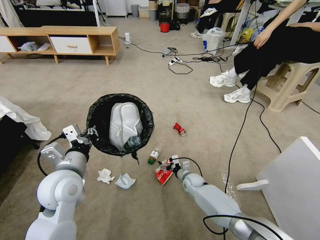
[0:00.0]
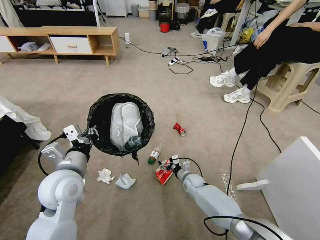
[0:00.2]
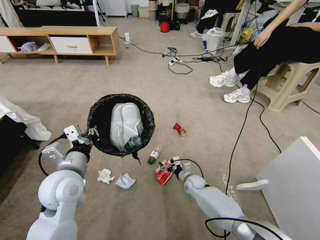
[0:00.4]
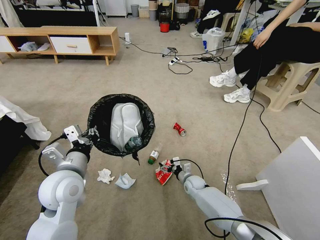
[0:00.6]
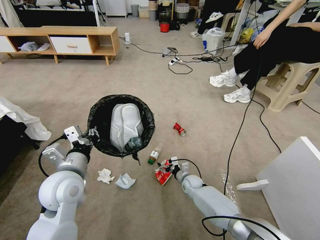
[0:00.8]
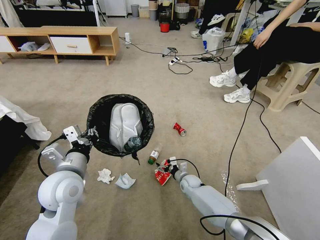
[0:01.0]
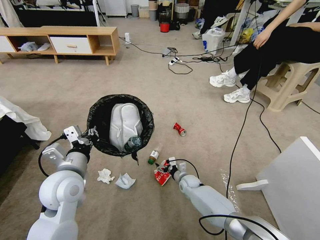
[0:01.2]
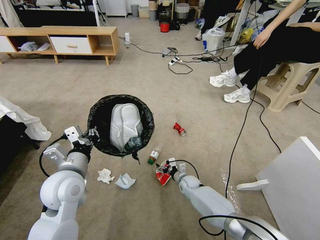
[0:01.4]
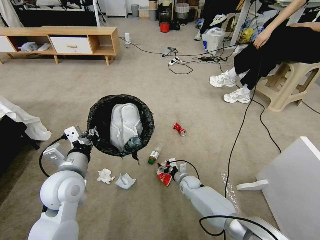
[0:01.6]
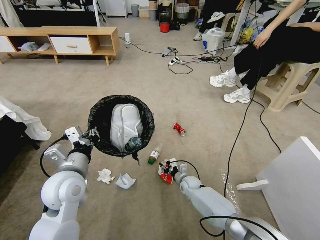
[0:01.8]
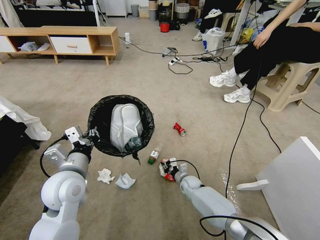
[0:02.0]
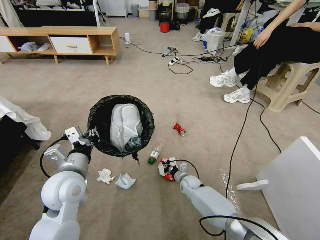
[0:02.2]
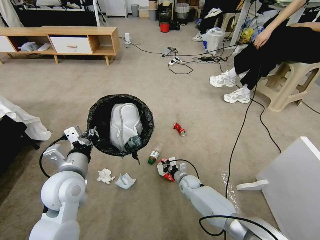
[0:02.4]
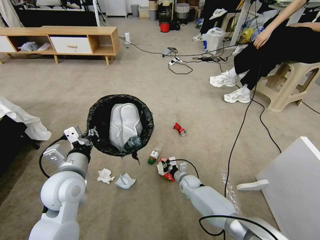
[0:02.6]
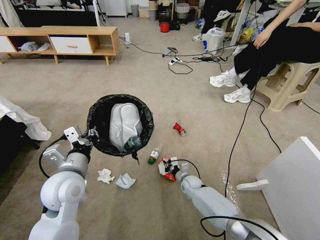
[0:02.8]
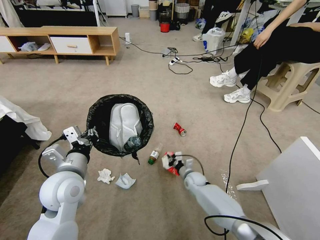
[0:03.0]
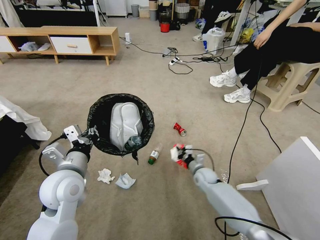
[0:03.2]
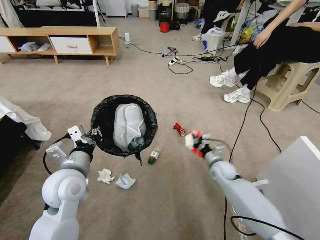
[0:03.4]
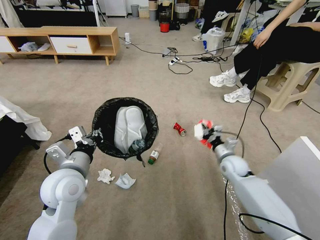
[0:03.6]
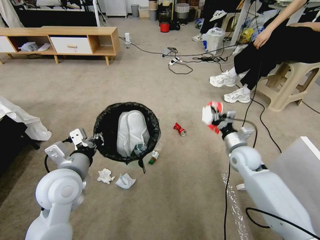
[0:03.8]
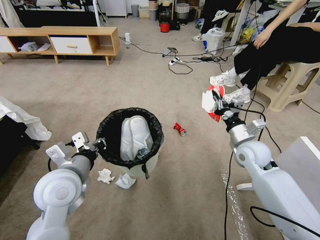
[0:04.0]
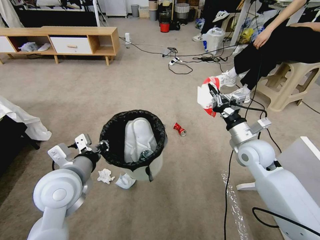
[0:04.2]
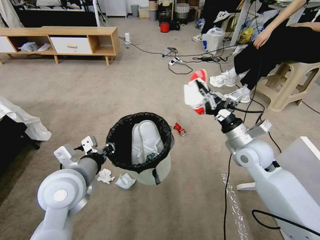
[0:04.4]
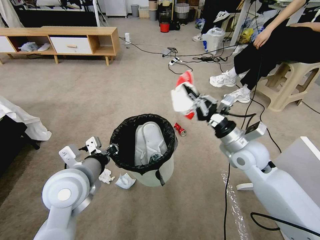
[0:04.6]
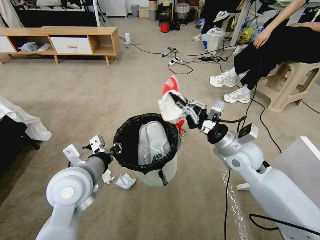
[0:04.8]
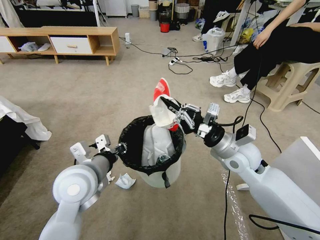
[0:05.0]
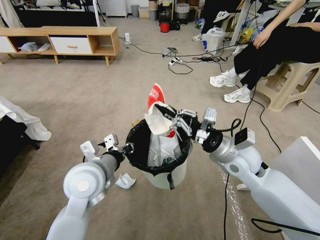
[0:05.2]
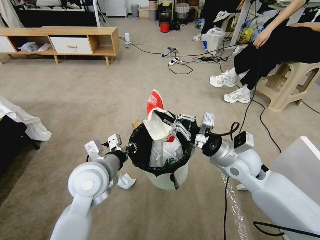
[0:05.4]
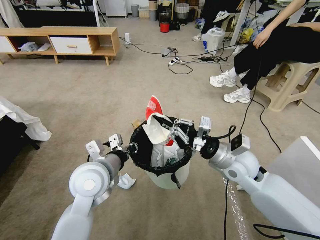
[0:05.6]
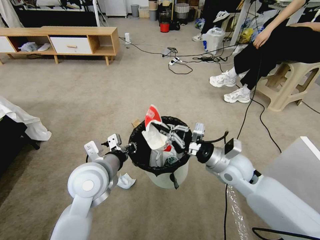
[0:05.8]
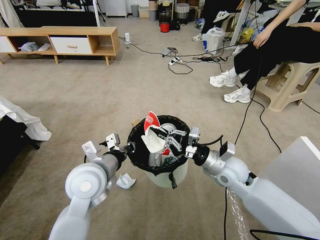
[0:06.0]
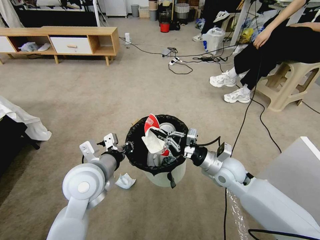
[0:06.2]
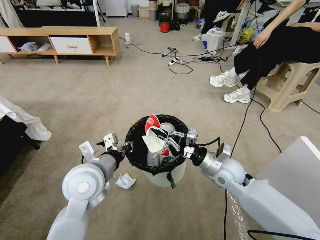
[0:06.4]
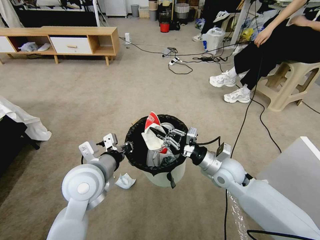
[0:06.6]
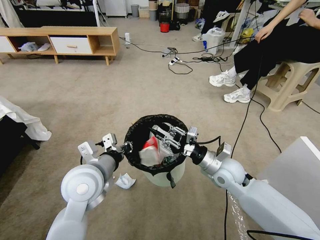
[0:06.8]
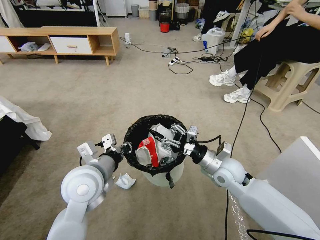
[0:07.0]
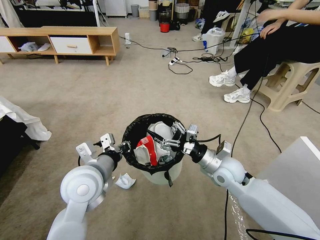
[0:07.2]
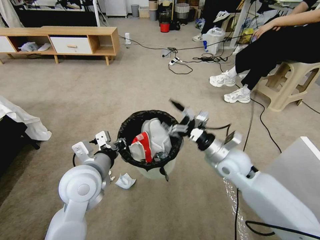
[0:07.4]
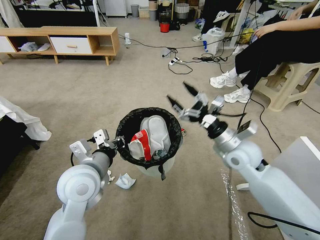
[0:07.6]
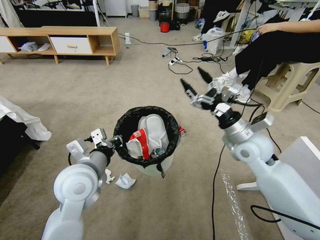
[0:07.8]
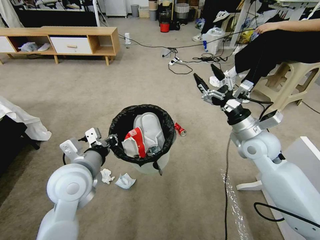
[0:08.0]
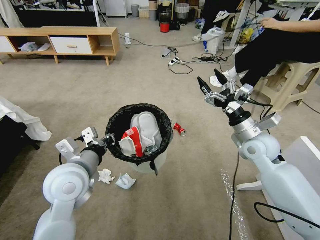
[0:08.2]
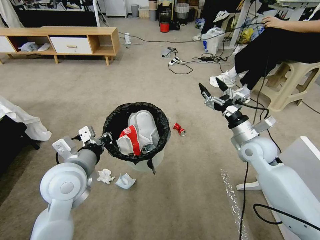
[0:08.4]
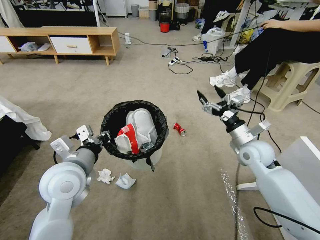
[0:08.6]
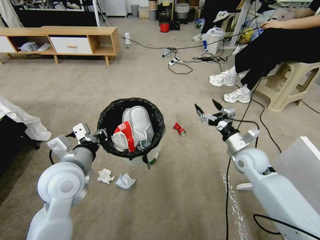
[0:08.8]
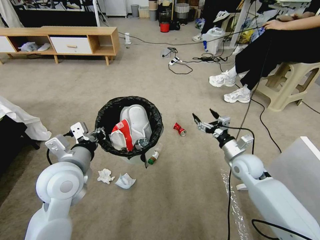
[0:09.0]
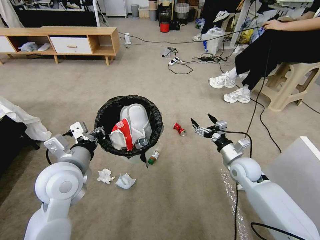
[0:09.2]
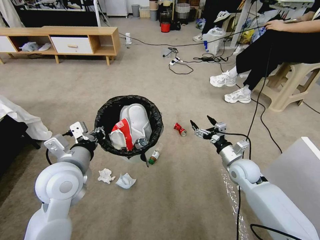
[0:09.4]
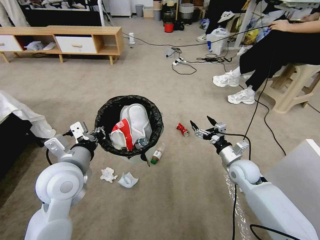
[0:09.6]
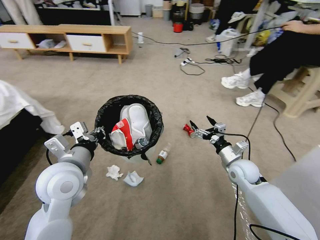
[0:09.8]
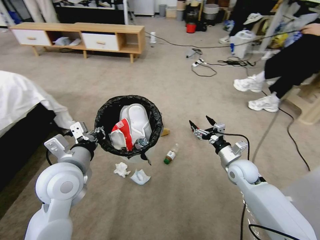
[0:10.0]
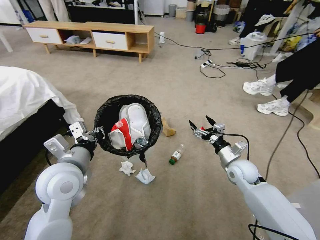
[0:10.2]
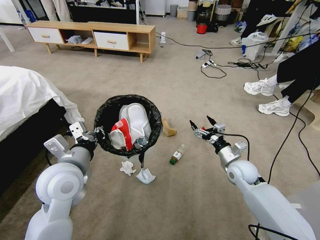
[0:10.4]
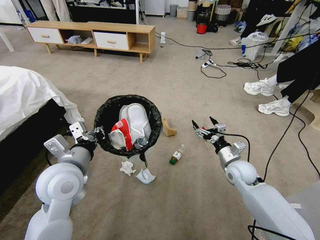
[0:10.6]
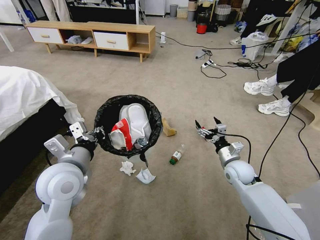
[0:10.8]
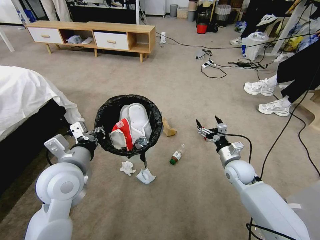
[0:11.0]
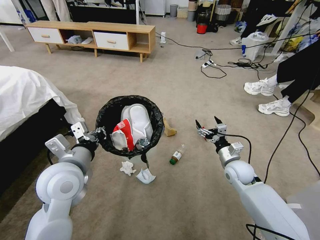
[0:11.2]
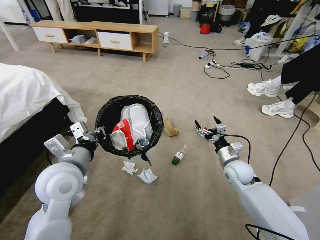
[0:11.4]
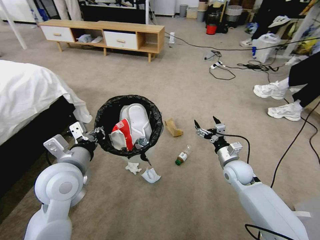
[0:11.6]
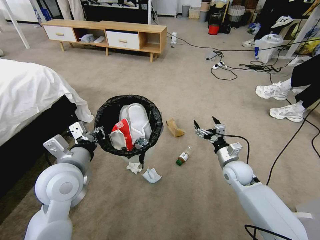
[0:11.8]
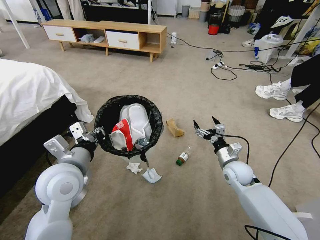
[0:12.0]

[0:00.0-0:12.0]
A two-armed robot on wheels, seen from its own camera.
Task of the whole recording: Pick up the trash bin and place the garbage on the floor into it.
0:00.0 to 0:01.6: There are only small adjustments of the grippers.
0:01.6 to 0:03.0: The right gripper closes up.
0:03.0 to 0:04.4: The right gripper heads upward, covering about 30 cm.
0:04.4 to 0:06.0: The left gripper shifts by some 5 cm, while the right gripper shifts about 10 cm to the left and downward.
0:06.0 to 0:07.6: The right gripper is displaced upward by approximately 5 cm, and opens up.
0:07.6 to 0:09.0: The right gripper goes about 15 cm downward and to the right.

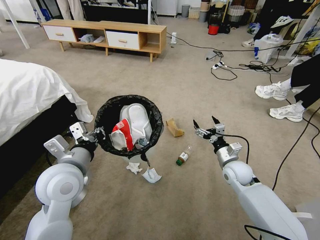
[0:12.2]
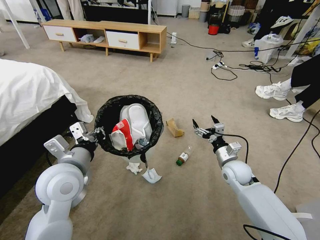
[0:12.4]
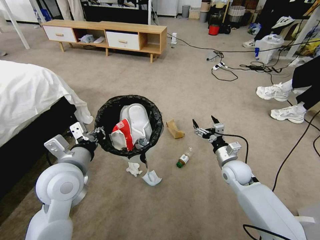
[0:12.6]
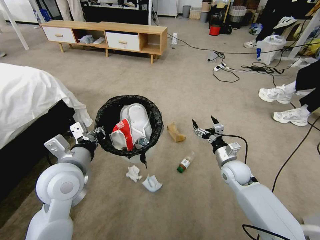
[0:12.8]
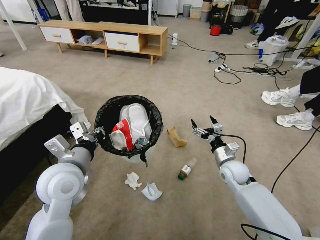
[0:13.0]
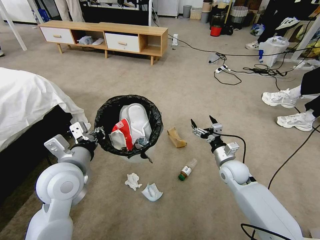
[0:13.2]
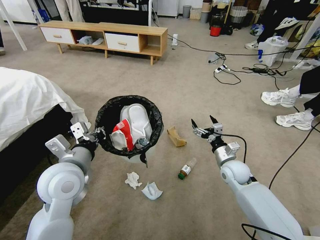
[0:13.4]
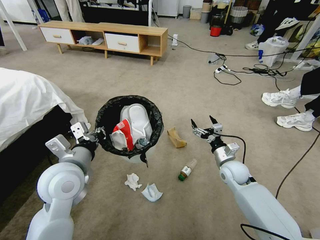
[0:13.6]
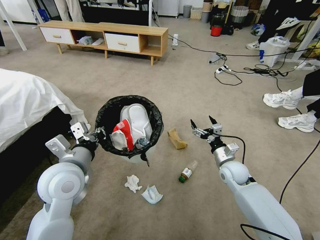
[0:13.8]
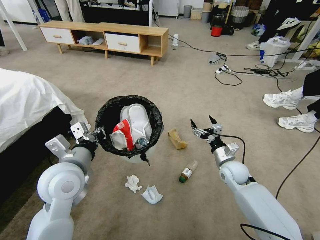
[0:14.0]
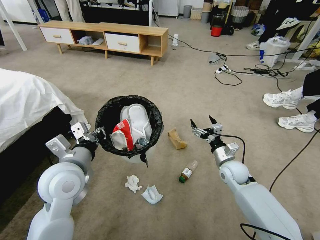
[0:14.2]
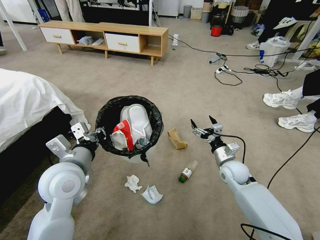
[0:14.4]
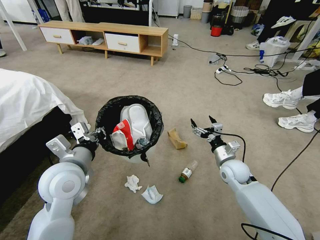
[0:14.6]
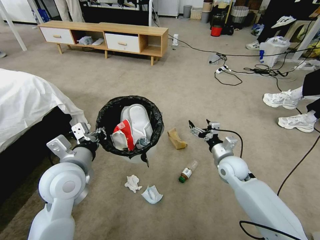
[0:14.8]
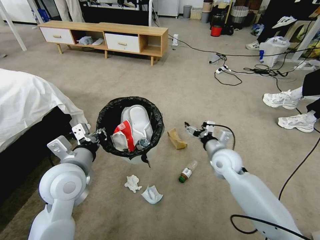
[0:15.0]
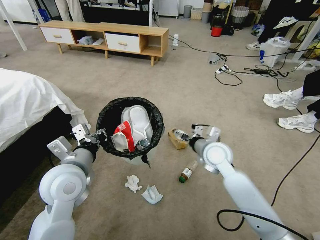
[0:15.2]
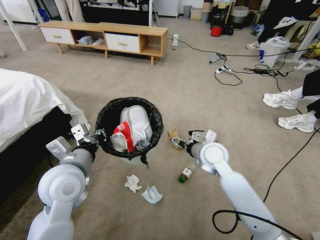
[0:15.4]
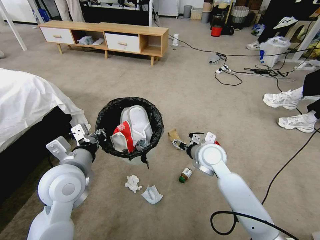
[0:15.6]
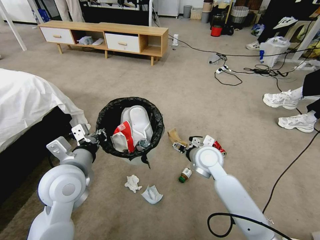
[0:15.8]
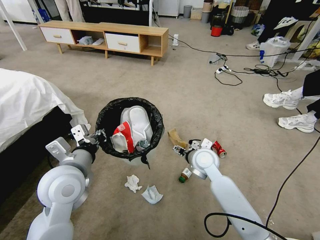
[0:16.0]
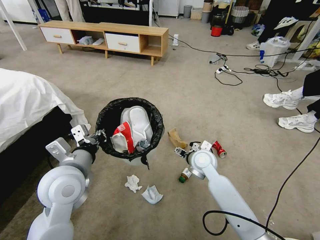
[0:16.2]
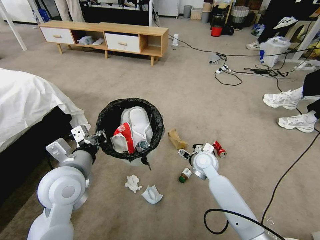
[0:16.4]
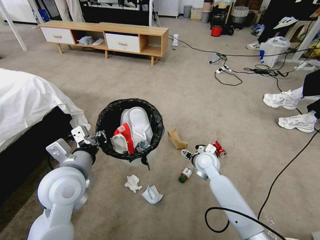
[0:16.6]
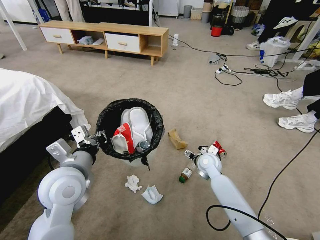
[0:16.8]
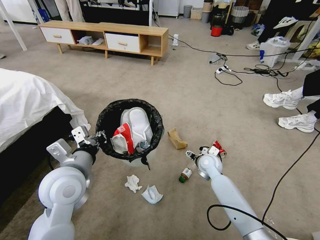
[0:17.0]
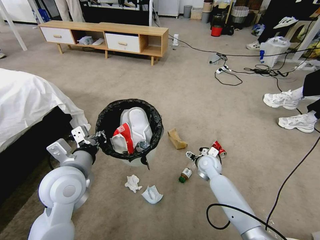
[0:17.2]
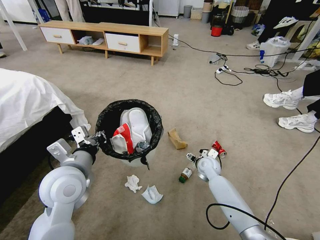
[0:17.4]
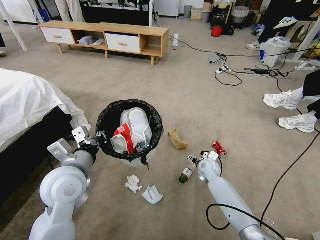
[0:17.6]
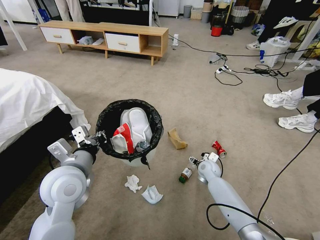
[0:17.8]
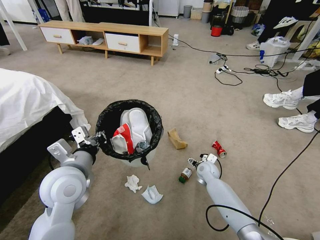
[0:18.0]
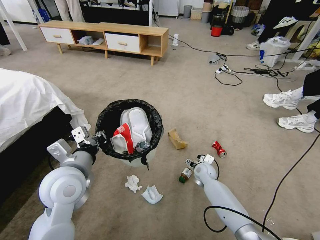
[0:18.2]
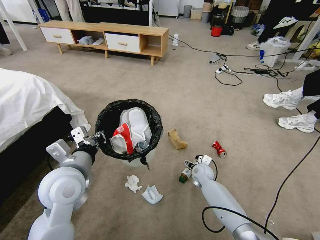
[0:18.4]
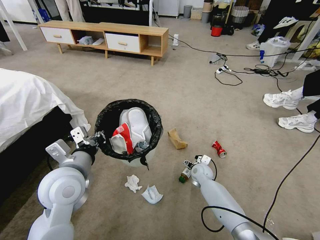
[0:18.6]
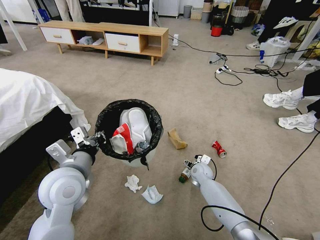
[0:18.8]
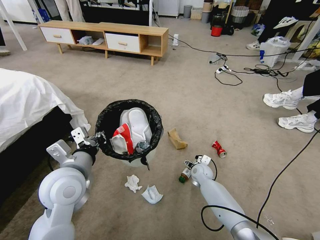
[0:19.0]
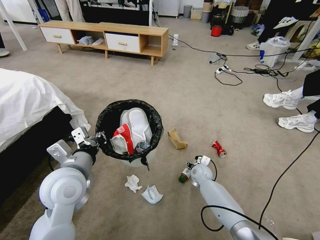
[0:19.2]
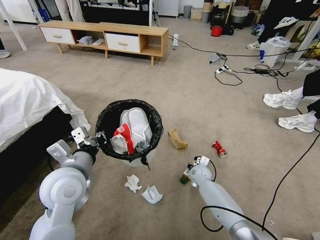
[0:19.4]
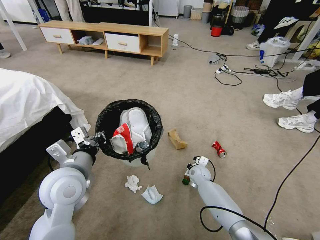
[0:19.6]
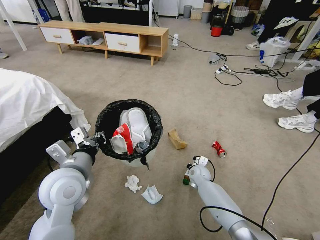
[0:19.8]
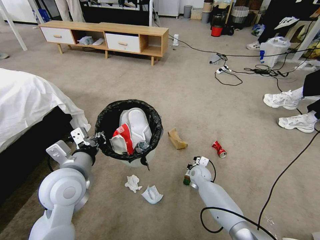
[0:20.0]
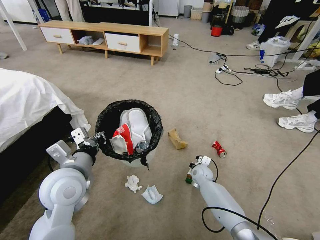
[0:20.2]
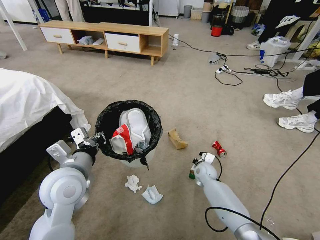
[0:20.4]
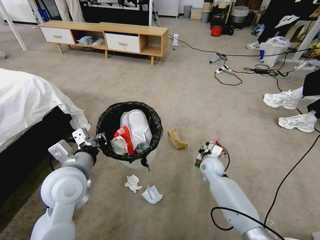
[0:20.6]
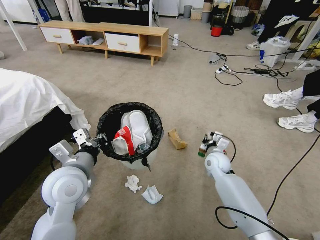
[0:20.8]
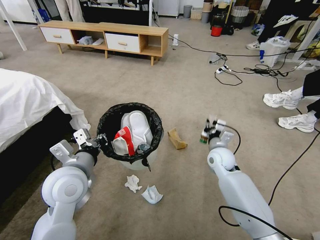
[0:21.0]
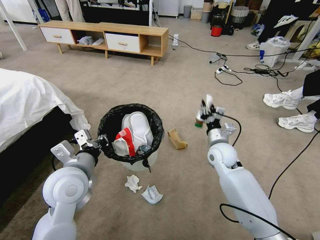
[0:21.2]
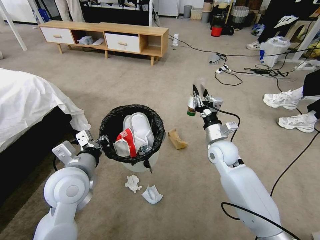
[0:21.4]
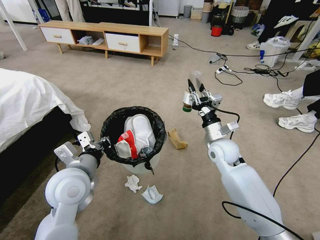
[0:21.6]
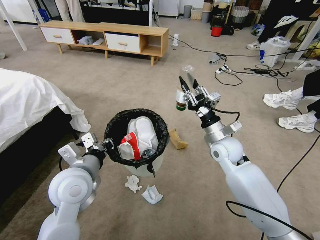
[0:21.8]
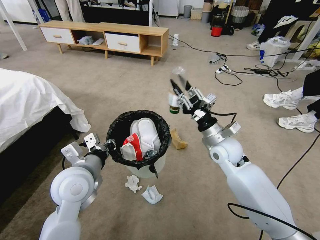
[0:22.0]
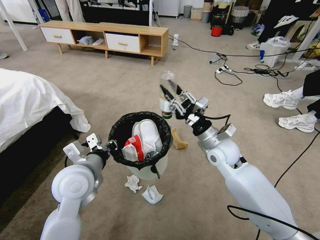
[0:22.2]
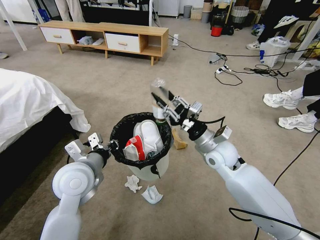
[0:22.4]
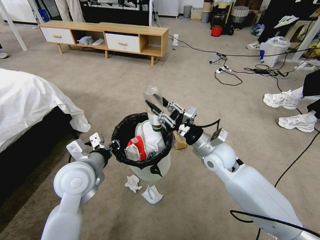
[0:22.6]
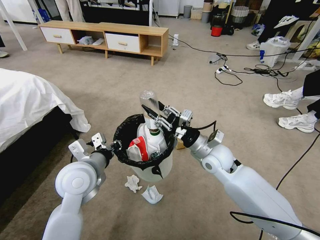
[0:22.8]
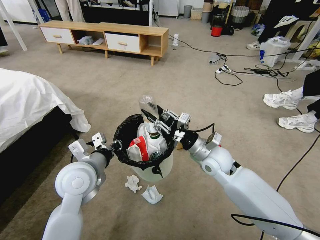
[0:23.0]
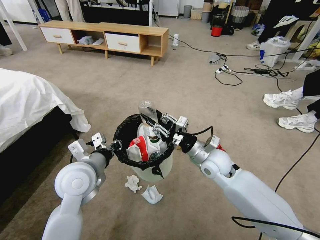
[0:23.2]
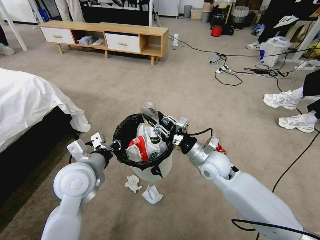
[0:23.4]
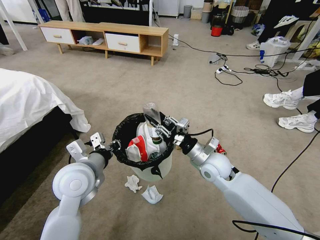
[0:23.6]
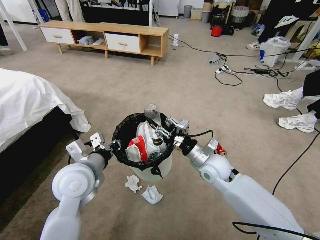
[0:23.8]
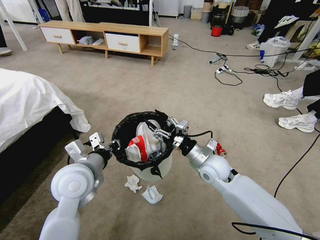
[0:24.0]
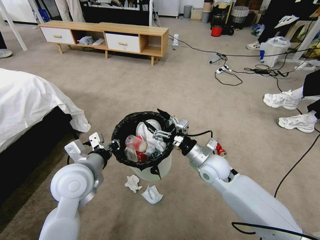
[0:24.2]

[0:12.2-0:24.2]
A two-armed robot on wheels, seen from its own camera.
Task of the whole recording: Pick up the trash bin and place the garbage on the floor into it.
0:13.8 to 0:15.2: The right gripper shifts approximately 15 cm upward and to the left.
0:15.2 to 0:16.6: The right gripper is displaced downward by roughly 10 cm.
0:16.6 to 0:18.2: The right gripper shifts about 10 cm downward.
0:18.2 to 0:19.8: The right gripper closes its fingers.
0:19.8 to 0:21.2: The right gripper shifts about 20 cm upward.
0:21.2 to 0:22.6: The right gripper shifts by some 5 cm.
0:22.6 to 0:24.2: The right gripper changes place by some 5 cm, and opens up.
